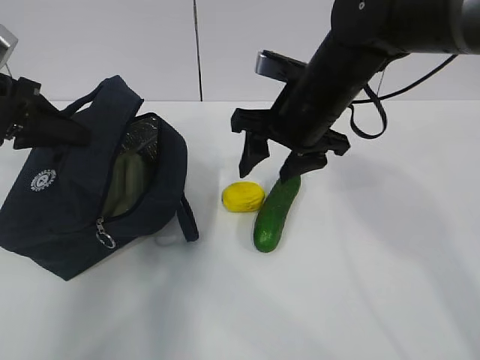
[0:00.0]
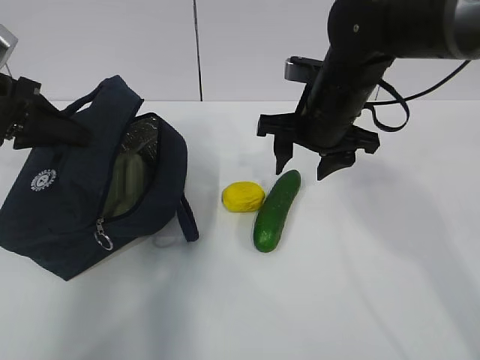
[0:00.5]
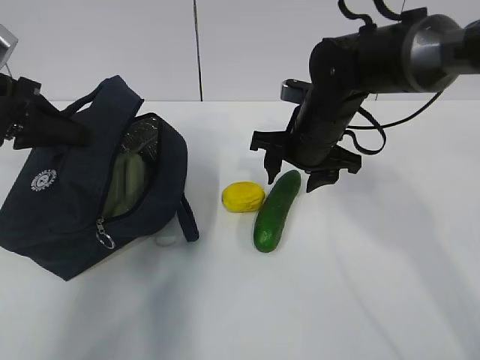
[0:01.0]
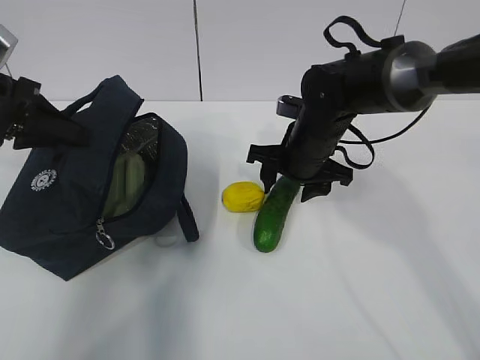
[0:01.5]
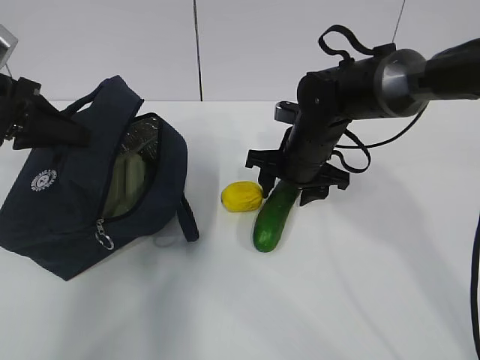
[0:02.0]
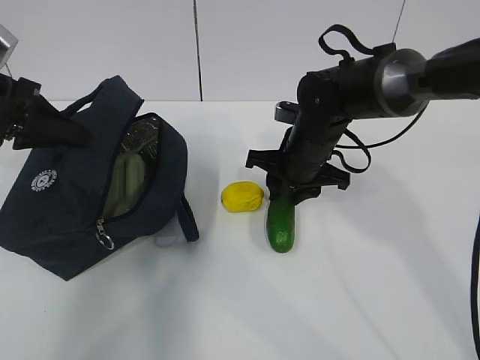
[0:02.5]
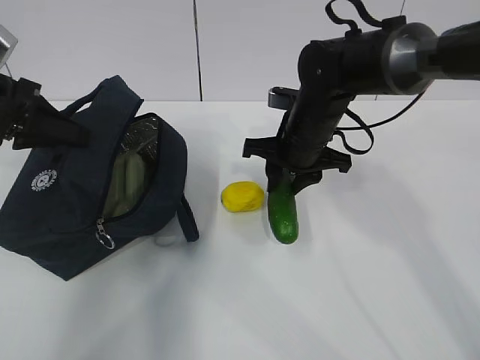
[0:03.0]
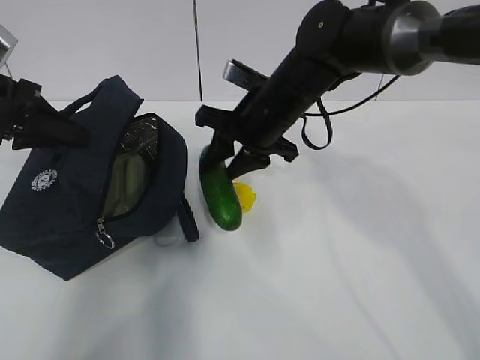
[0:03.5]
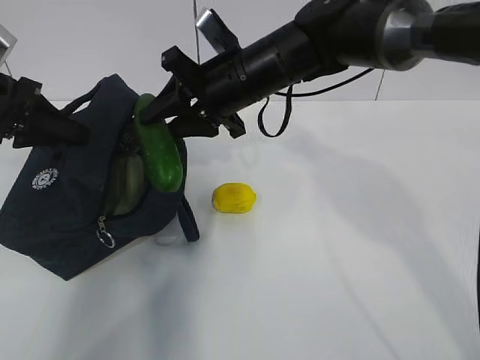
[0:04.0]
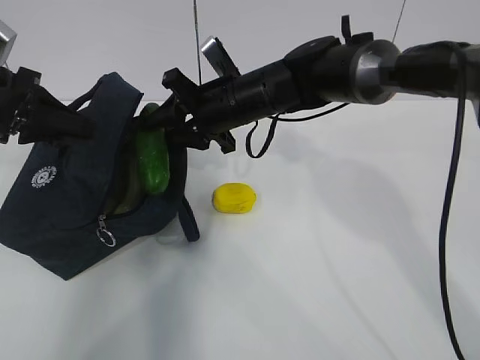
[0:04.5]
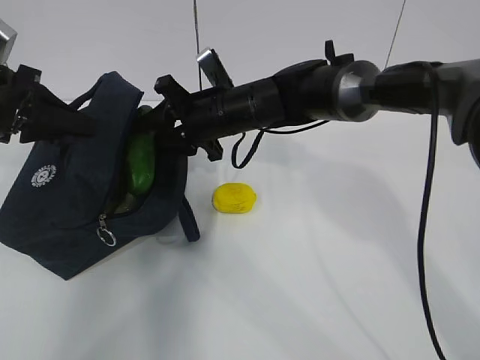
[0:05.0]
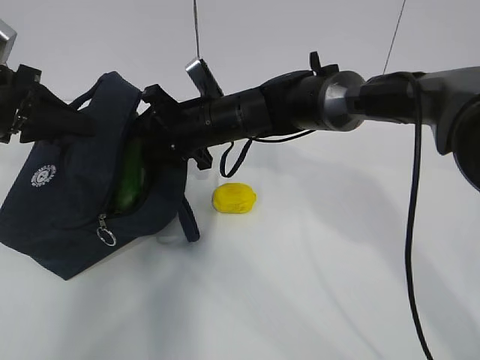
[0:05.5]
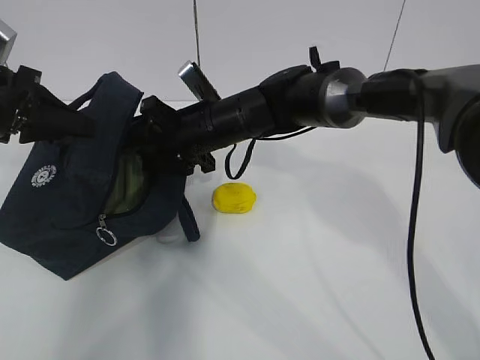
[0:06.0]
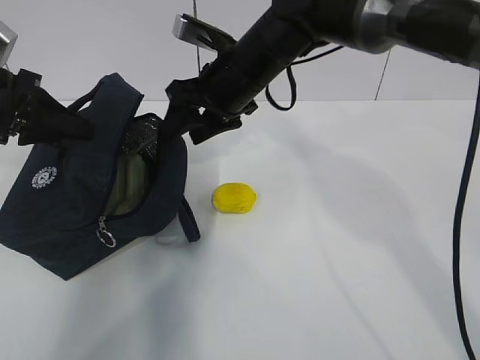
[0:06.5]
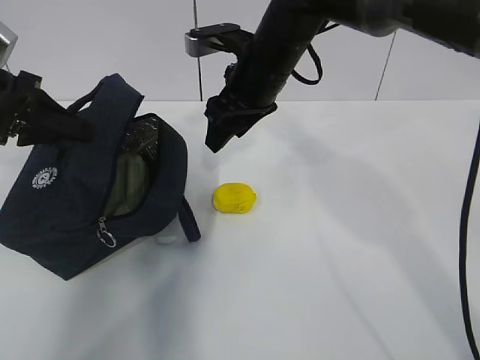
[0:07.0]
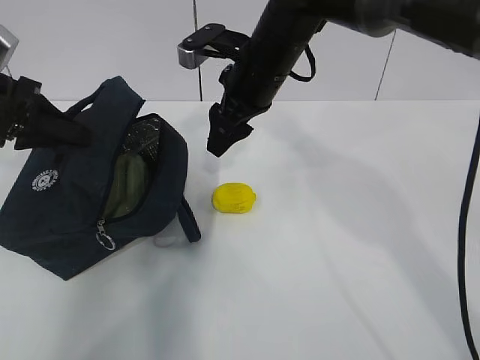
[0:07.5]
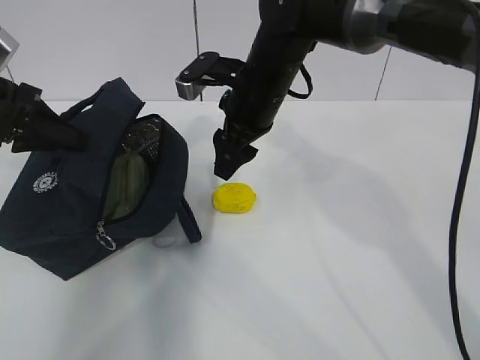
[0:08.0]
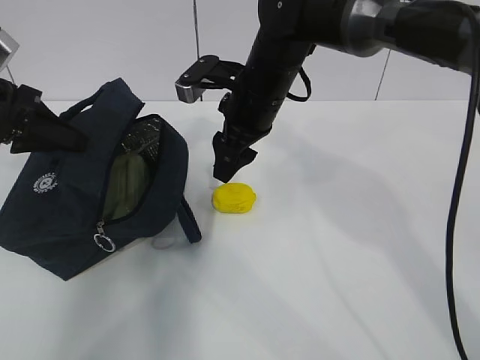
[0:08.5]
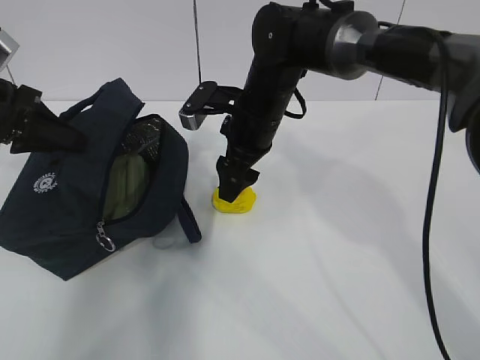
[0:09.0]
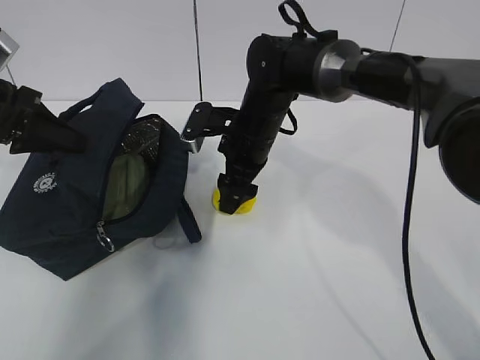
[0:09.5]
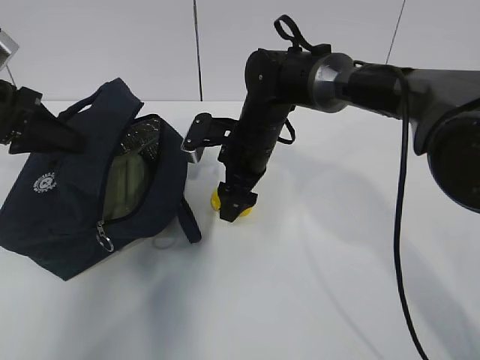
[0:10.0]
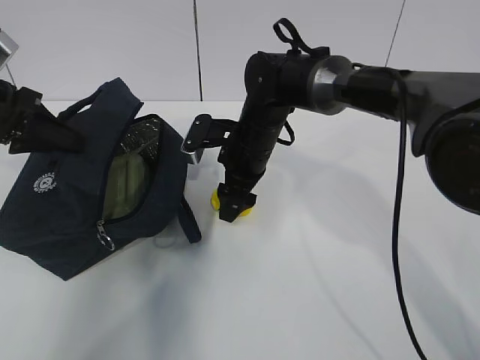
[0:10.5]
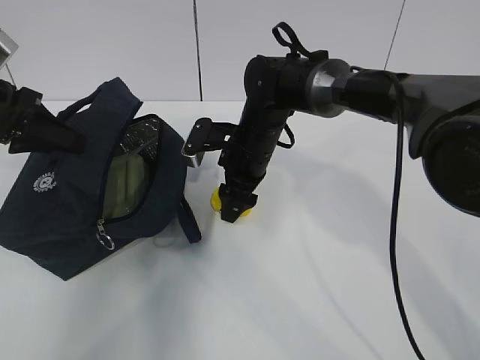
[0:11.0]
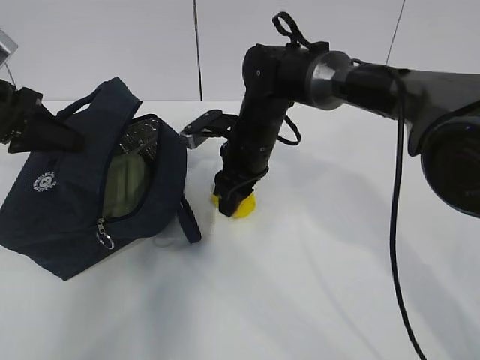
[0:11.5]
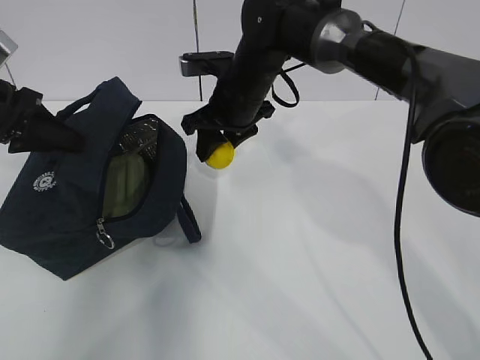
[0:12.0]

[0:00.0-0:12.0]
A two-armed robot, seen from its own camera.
Step, 0:00.0 to 0:02.5: Grasp the cucumber with the right gripper.
Step, 0:03.0 to 0:06.0: Place the cucumber into the package with the right gripper.
Step, 0:06.5 to 0:11.0: Grasp the lemon with the right gripper.
0:00.0 to 0:02.0: The right gripper is displaced downward by about 10 cm.
0:02.0 to 0:04.0: The right gripper shifts approximately 15 cm upward and to the left, and closes.
0:04.0 to 0:06.0: The right gripper shifts approximately 5 cm downward.
0:06.0 to 0:08.0: The right gripper is displaced upward and to the right by some 10 cm.
0:08.0 to 0:10.0: The right gripper heads downward, covering approximately 10 cm.
0:10.0 to 0:12.0: The right gripper is displaced upward by approximately 5 cm, and closes its fingers.

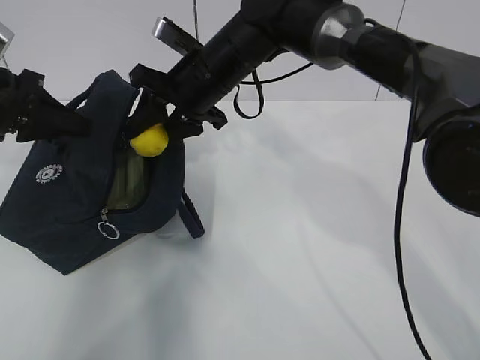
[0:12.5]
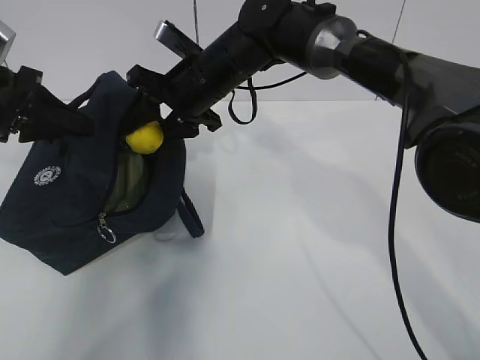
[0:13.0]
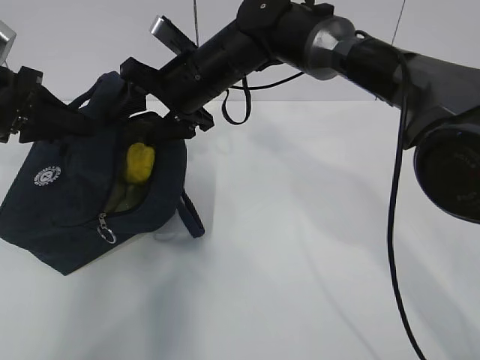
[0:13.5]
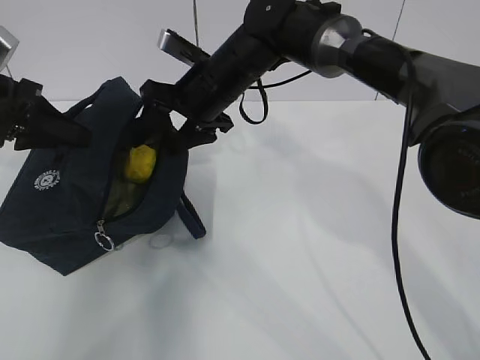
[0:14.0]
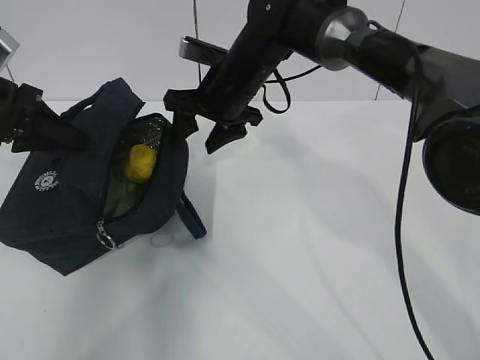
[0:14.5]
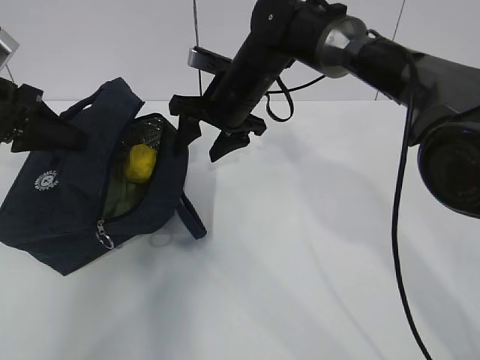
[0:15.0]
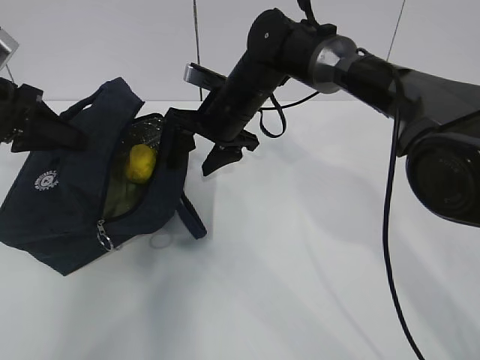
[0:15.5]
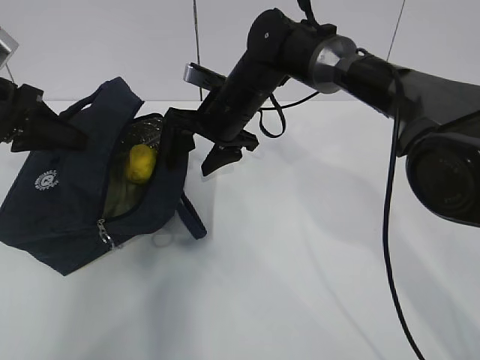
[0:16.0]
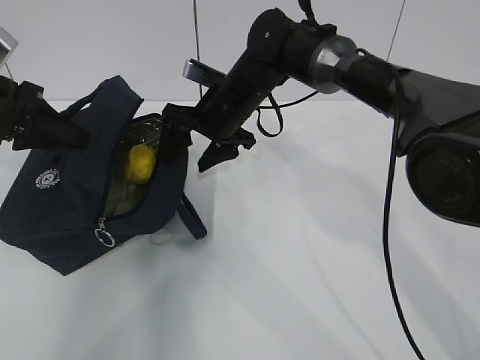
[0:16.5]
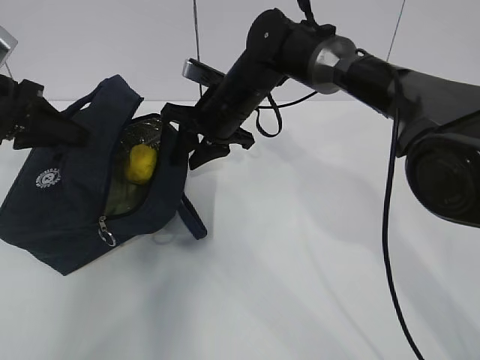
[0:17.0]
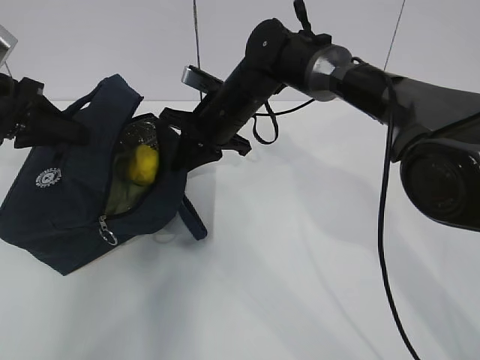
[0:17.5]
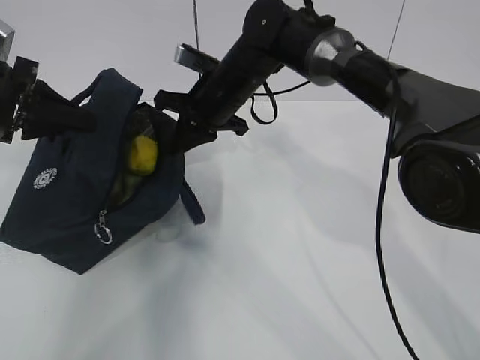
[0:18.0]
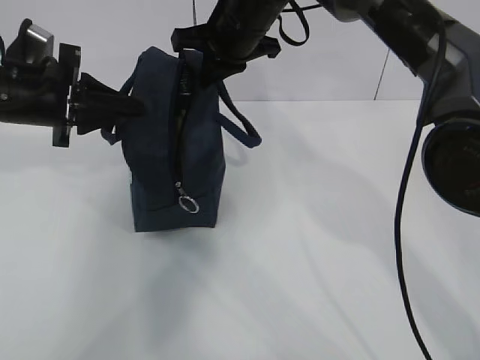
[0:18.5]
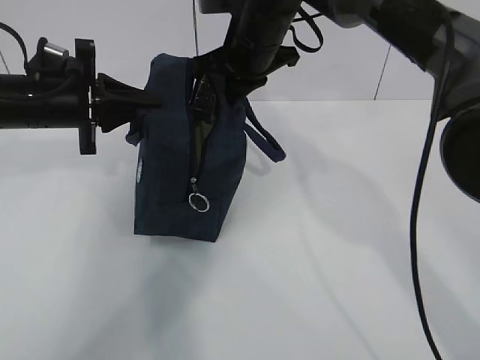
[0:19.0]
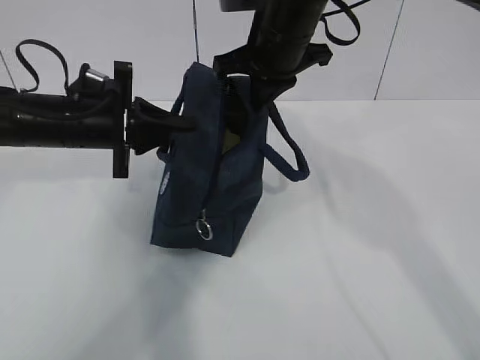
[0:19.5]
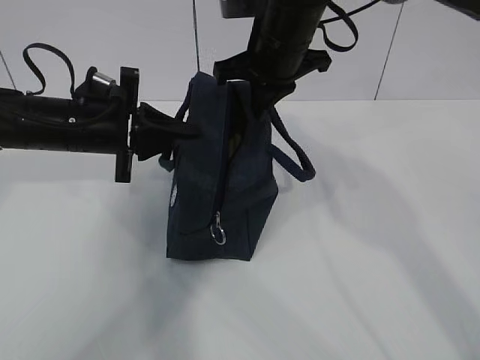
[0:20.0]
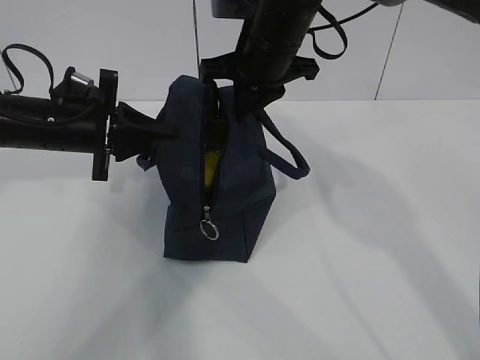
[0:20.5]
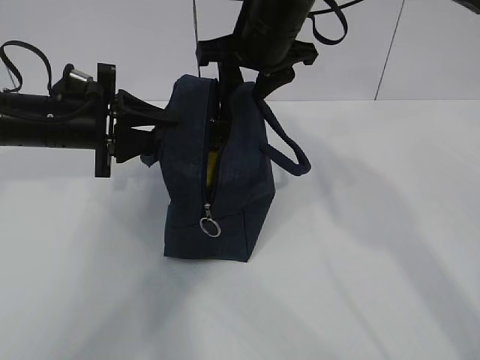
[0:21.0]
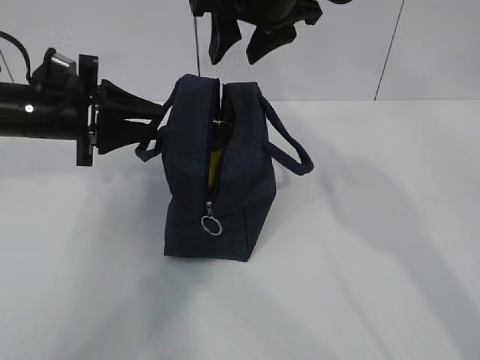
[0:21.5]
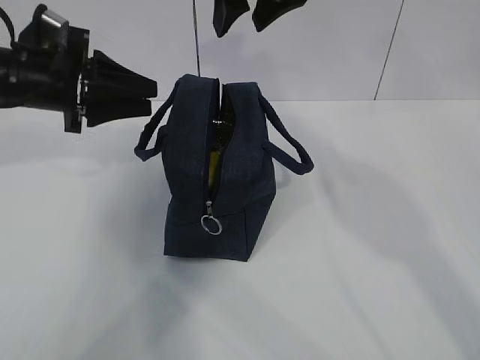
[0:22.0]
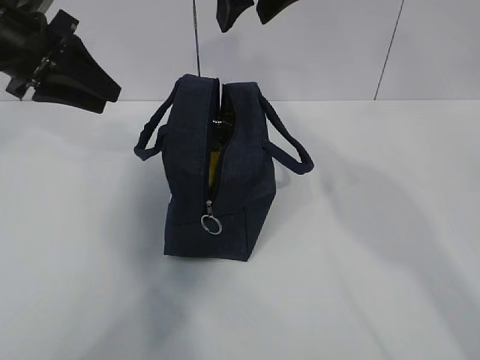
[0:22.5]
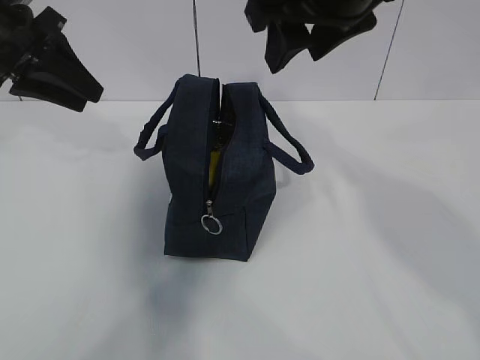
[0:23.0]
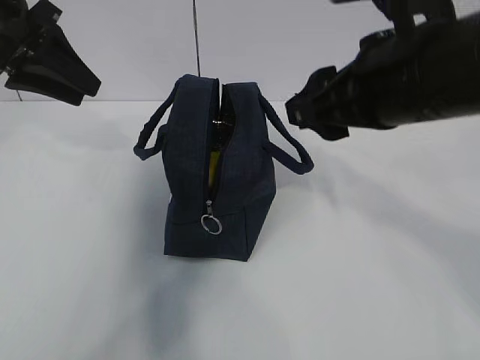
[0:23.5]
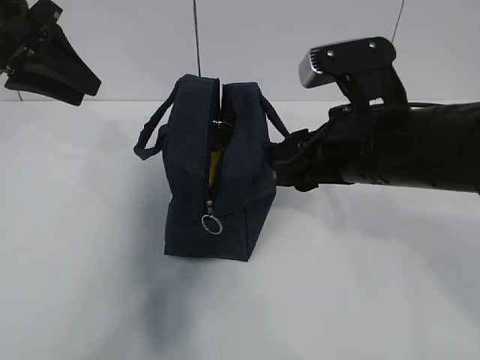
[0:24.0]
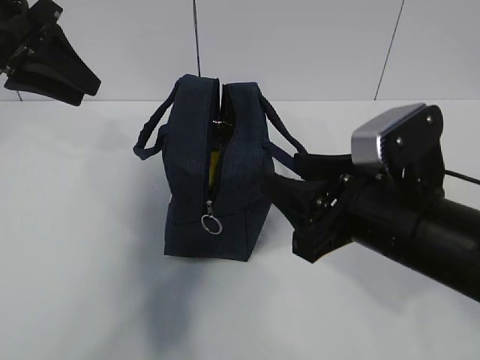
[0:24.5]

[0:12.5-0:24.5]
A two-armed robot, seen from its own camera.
0:12.5 to 0:14.5: The grippers move only a little.
0:14.5 to 0:16.5: The grippers move only a little.
0:16.5 to 0:18.5: The right gripper travels upward by approximately 10 cm, and closes up. Meanwhile the left gripper ends up some 5 cm from where it was.
0:18.5 to 0:20.5: The left gripper changes place by approximately 5 cm.
0:20.5 to 0:22.5: The grippers both shift upward by some 10 cm. The left gripper opens. Meanwhile the right gripper opens up.
0:22.5 to 0:24.5: The right gripper travels downward, backward and to the right by roughly 25 cm.

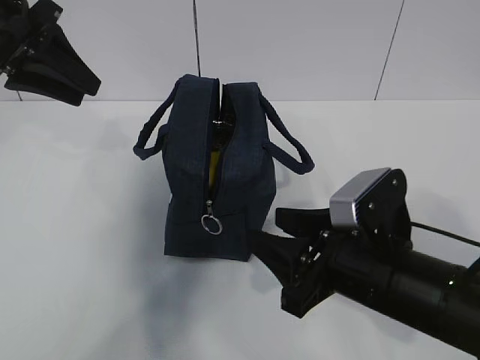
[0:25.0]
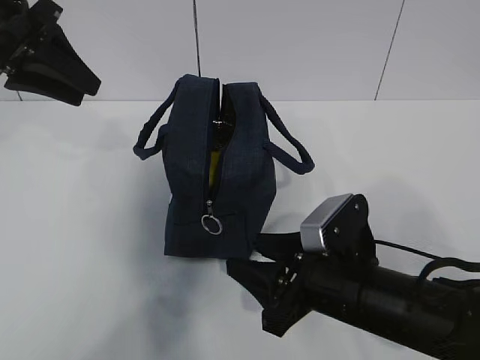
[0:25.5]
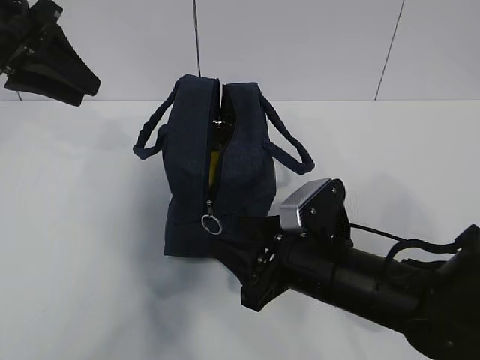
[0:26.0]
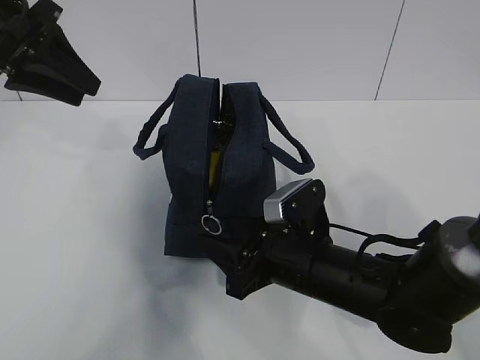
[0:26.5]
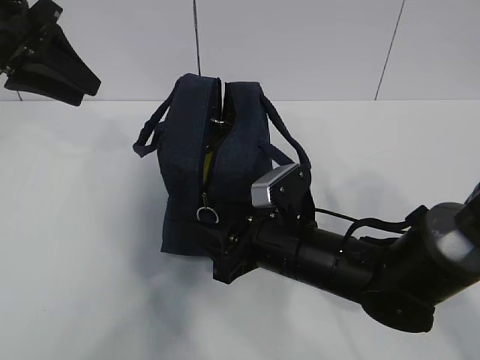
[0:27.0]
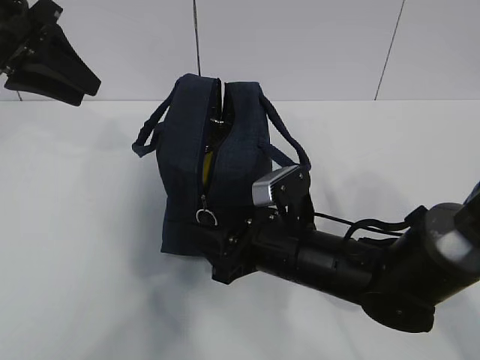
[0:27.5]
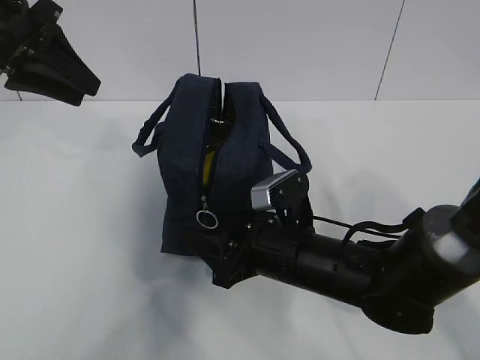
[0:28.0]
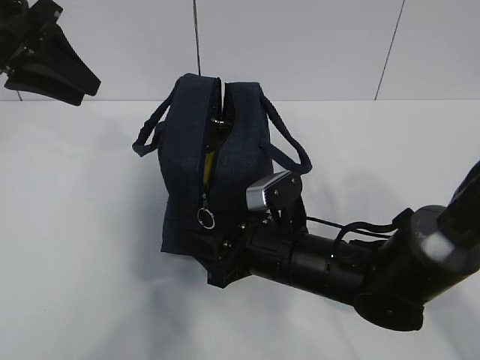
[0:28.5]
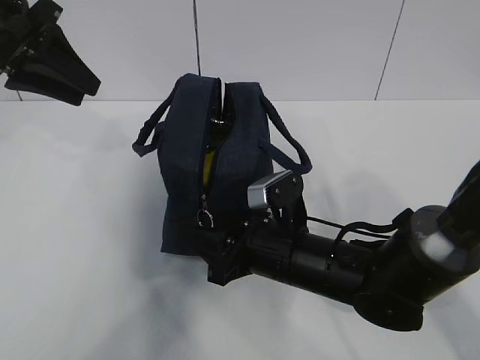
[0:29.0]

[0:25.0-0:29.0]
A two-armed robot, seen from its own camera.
0:25.0 to 0:27.0: The right gripper is displaced forward, to the left and downward by approximately 10 cm.
0:27.0 to 0:29.0: The grippers move only a little.
